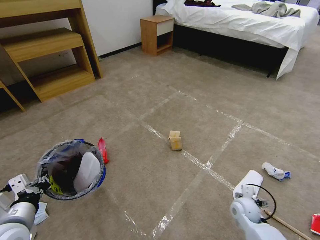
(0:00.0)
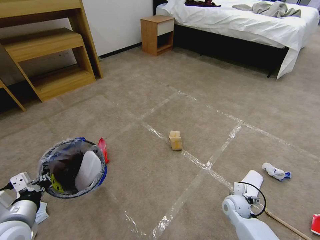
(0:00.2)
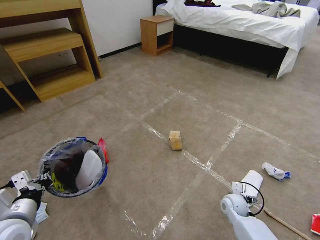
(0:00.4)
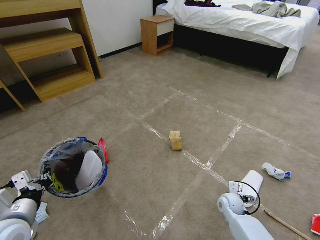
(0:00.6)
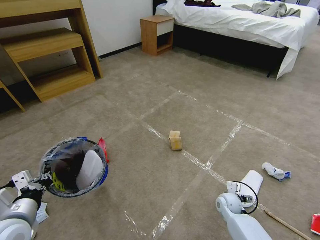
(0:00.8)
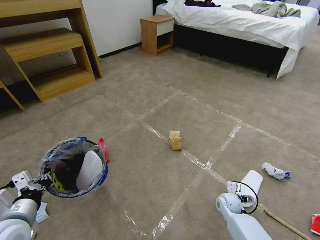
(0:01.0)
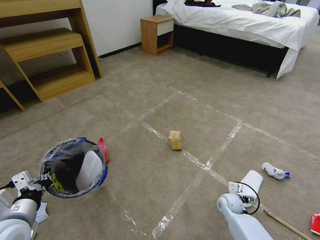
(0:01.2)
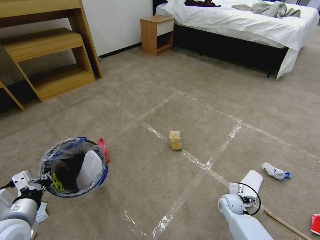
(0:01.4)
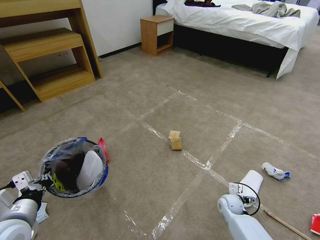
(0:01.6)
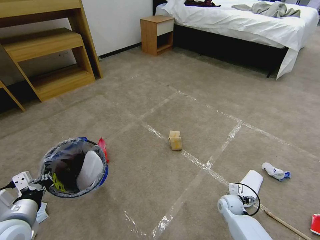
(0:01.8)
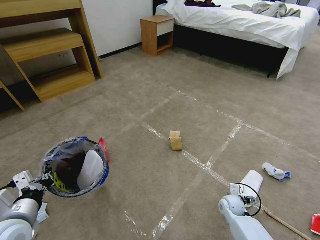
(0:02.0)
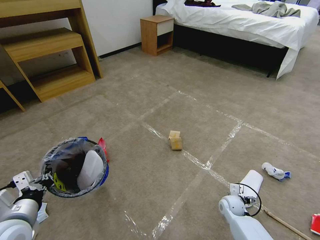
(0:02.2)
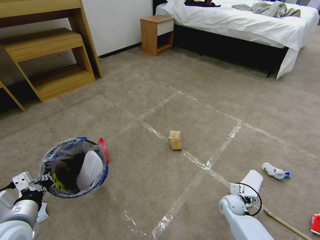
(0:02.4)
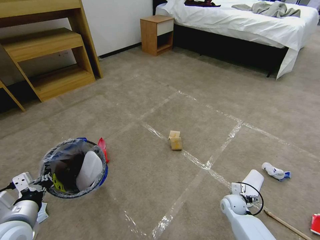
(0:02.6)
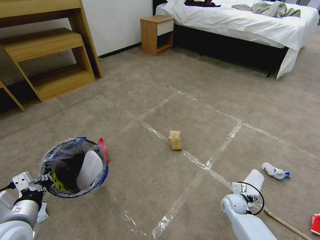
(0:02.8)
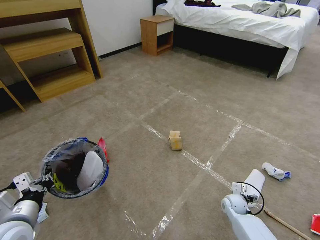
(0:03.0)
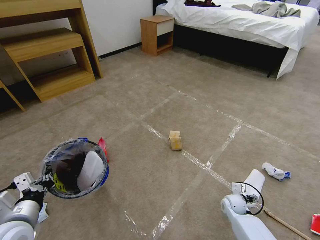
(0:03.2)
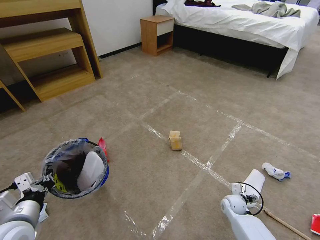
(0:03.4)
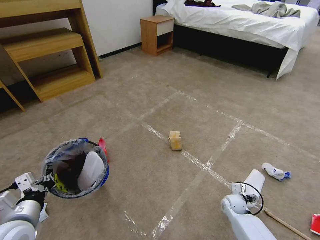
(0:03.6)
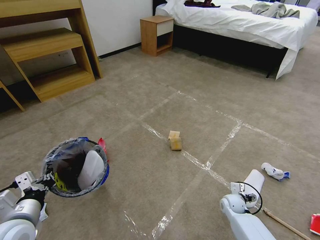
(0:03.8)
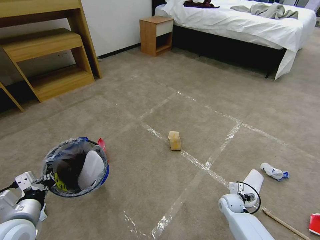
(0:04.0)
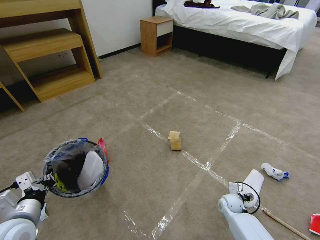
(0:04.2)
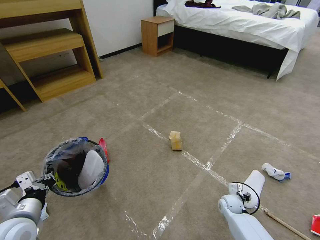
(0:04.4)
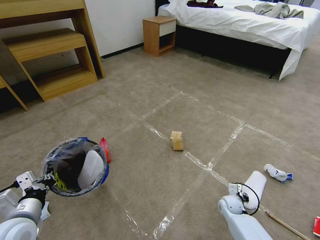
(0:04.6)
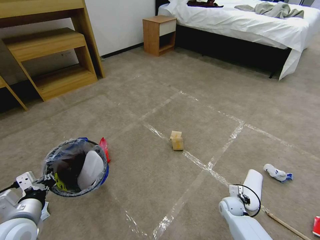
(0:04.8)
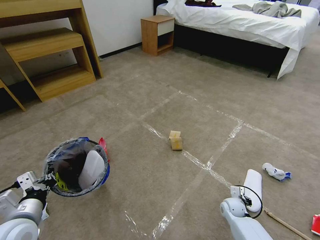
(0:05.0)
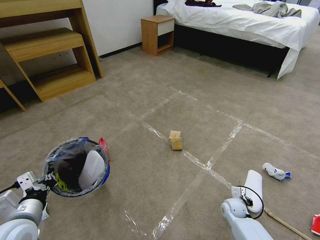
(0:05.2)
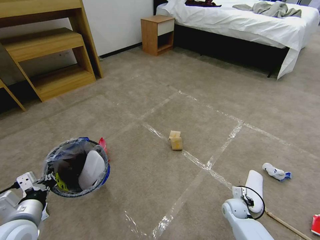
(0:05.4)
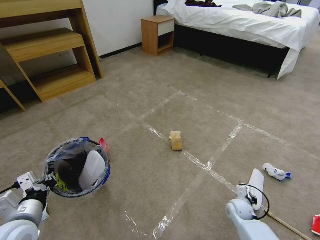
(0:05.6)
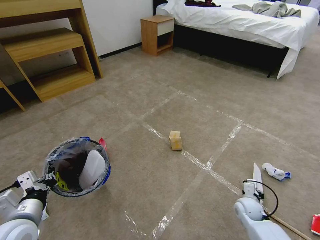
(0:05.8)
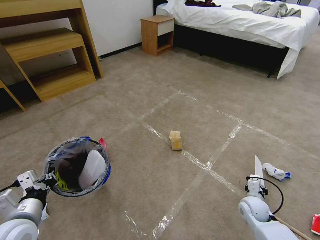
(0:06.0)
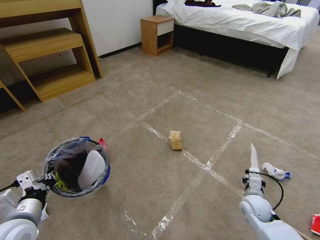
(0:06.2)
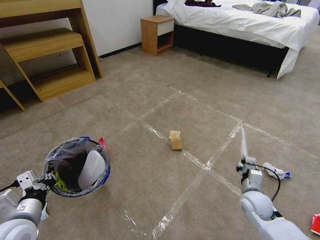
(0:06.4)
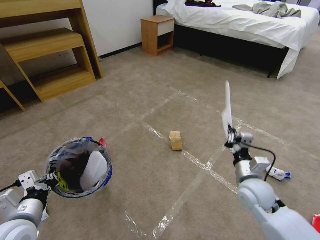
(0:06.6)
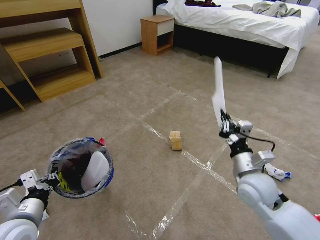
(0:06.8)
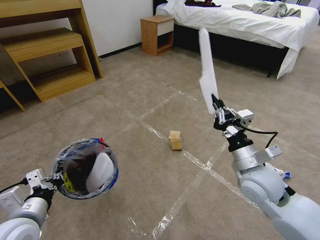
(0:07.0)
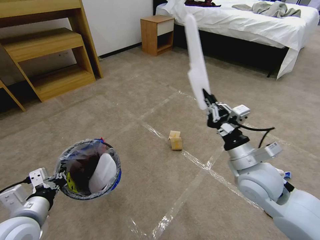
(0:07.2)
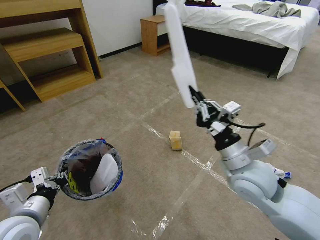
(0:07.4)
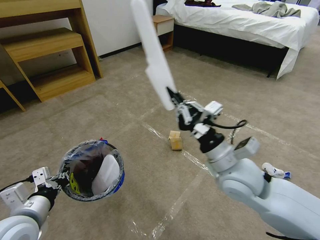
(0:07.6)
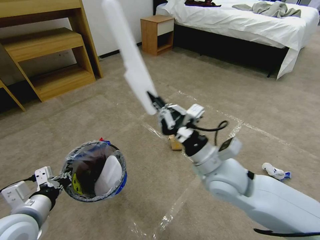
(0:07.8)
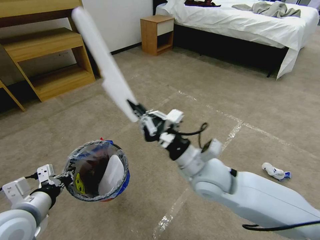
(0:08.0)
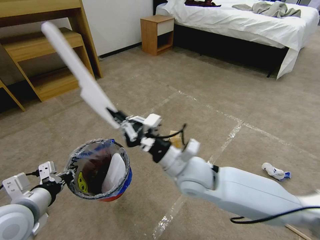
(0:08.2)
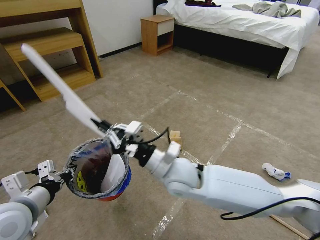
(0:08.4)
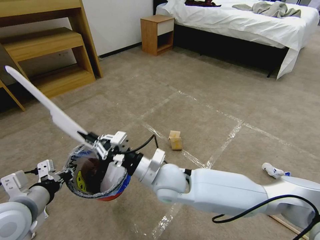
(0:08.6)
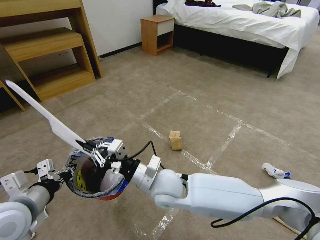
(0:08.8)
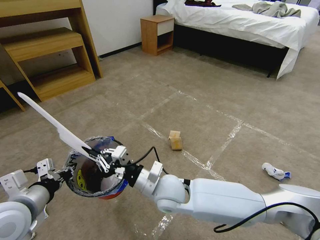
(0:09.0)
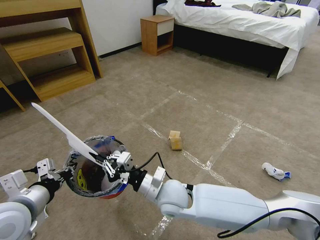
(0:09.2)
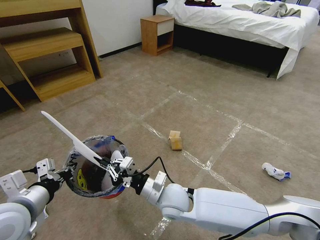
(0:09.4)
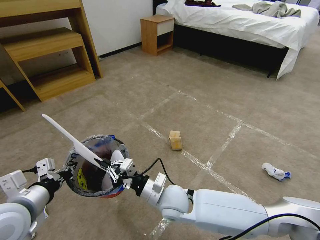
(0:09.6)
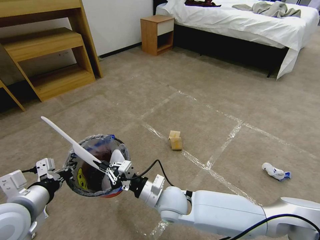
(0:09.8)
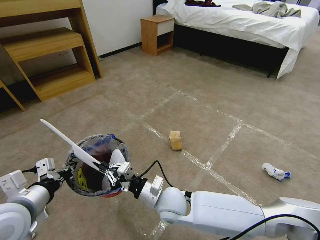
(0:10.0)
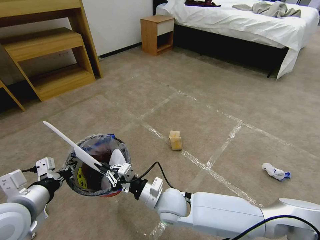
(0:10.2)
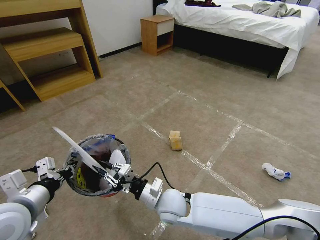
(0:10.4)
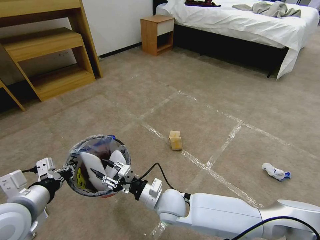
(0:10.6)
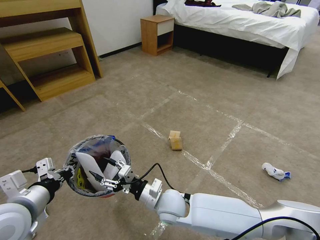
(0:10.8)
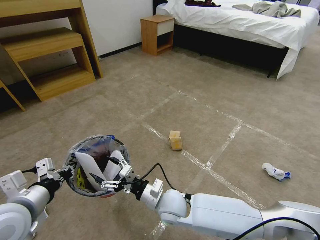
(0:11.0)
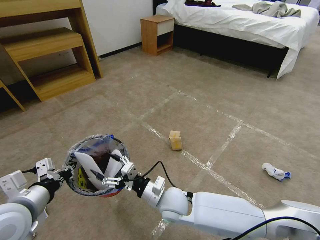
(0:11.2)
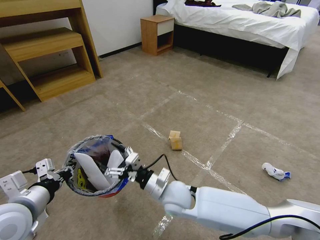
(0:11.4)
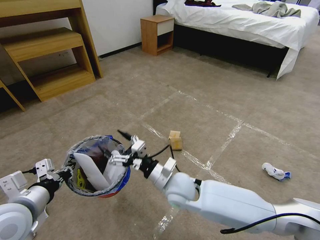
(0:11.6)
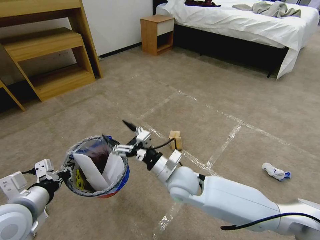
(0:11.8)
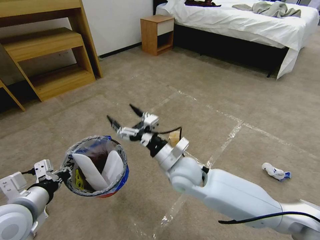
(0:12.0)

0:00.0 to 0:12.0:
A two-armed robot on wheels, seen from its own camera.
Task of the whole recording: Pick up the trash bin and place the garbage on the floor into it.
0:00.0 to 0:01.6: The right gripper heads downward, covering roughly 5 cm.
0:01.6 to 0:03.0: The grippers move only a little.
0:03.0 to 0:04.4: The right gripper closes.
0:04.4 to 0:06.0: The right gripper goes about 10 cm upward, and closes.
0:06.0 to 0:07.6: The right gripper shifts some 35 cm upward and to the left.
0:07.6 to 0:09.0: The right gripper travels to the left and downward by about 20 cm.
0:09.0 to 0:10.4: The right gripper travels downward by about 5 cm.
0:10.4 to 0:12.0: The right gripper moves upward and forward, roughly 10 cm, and opens its fingers.

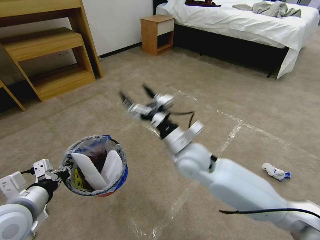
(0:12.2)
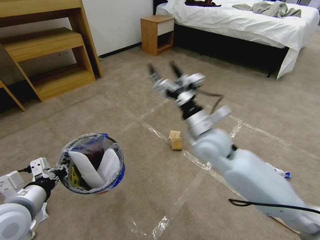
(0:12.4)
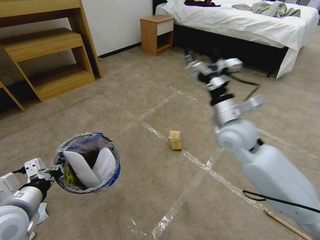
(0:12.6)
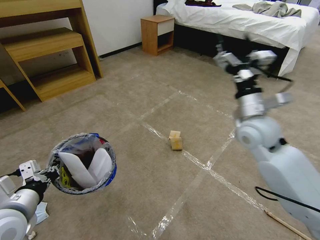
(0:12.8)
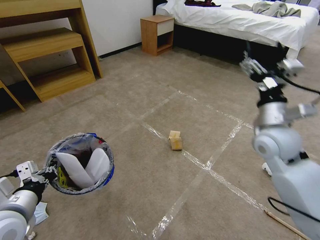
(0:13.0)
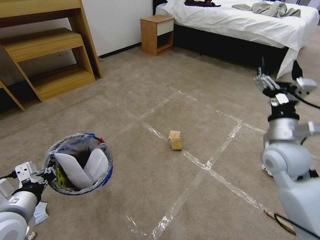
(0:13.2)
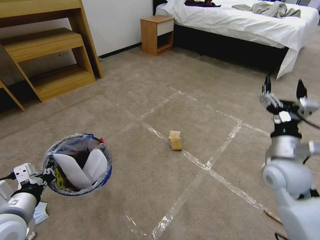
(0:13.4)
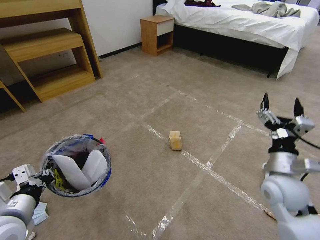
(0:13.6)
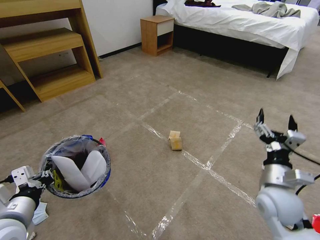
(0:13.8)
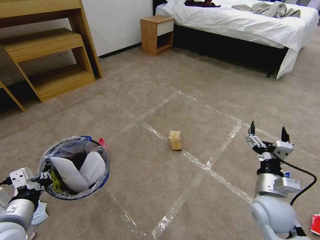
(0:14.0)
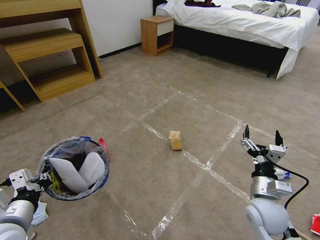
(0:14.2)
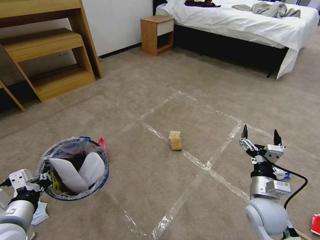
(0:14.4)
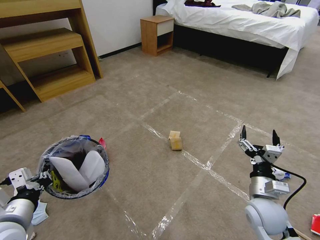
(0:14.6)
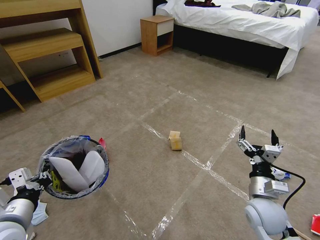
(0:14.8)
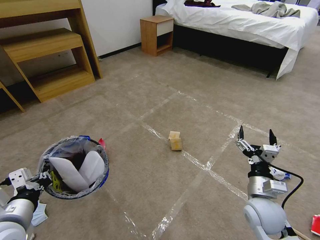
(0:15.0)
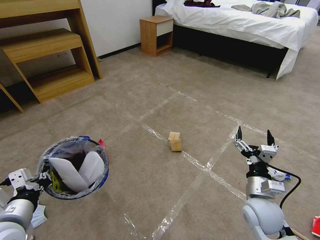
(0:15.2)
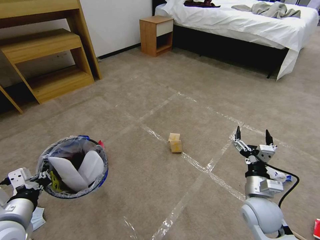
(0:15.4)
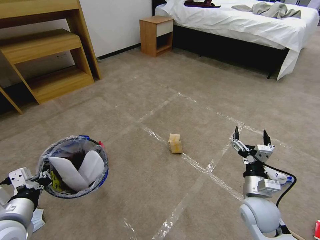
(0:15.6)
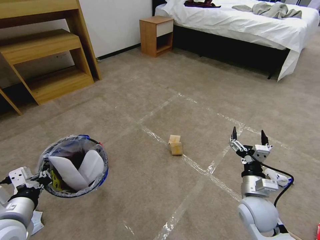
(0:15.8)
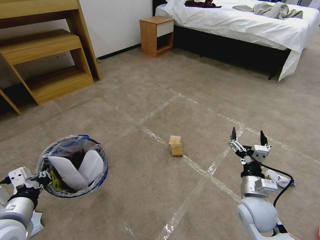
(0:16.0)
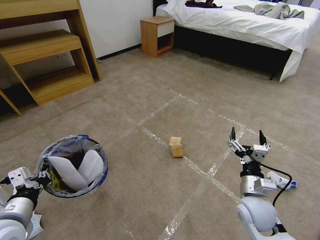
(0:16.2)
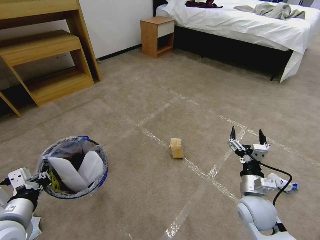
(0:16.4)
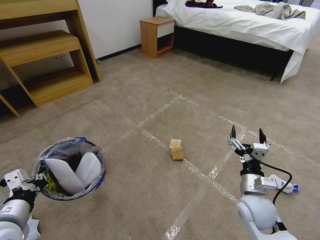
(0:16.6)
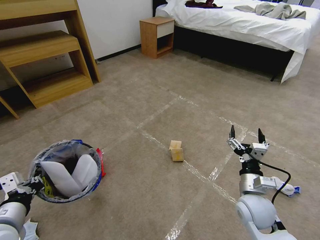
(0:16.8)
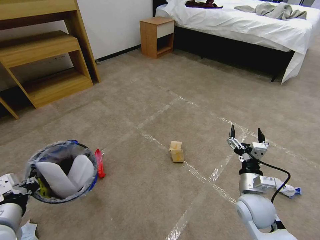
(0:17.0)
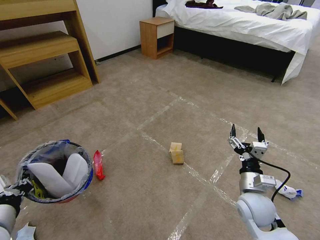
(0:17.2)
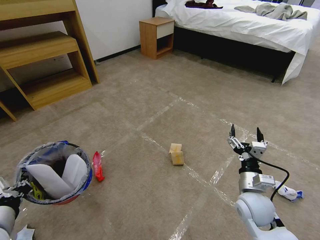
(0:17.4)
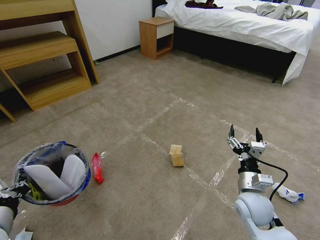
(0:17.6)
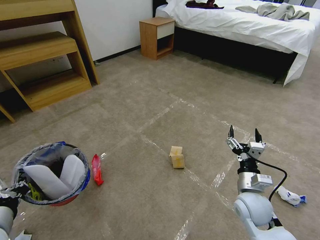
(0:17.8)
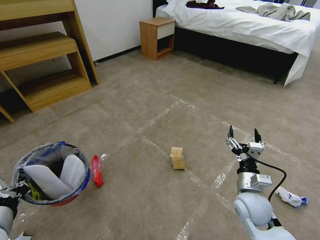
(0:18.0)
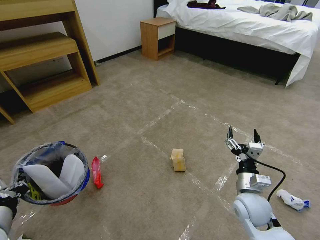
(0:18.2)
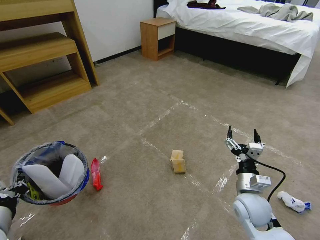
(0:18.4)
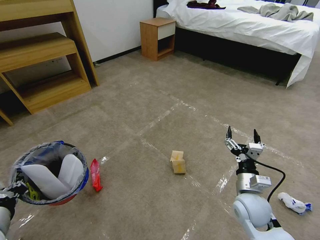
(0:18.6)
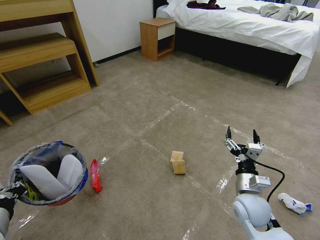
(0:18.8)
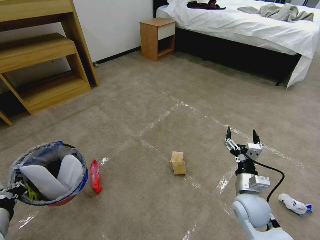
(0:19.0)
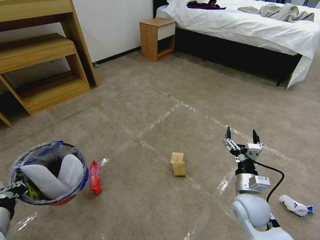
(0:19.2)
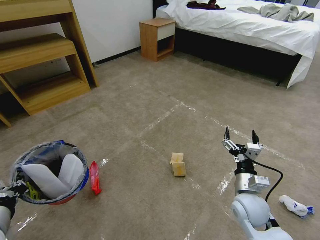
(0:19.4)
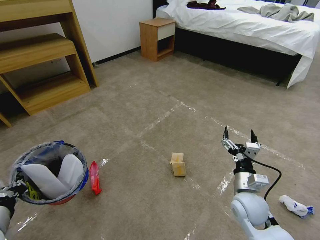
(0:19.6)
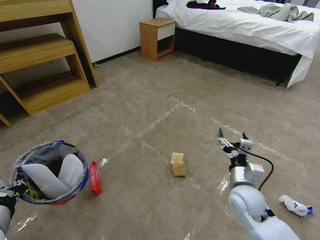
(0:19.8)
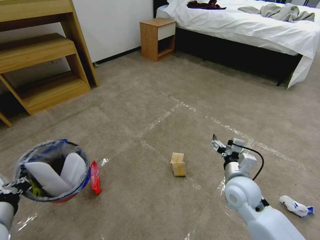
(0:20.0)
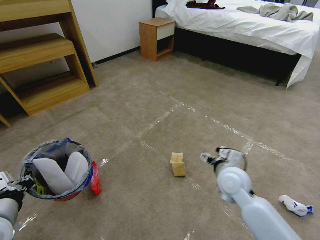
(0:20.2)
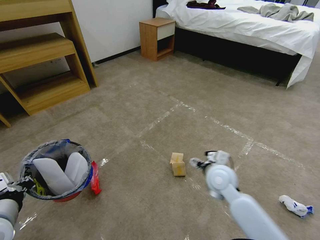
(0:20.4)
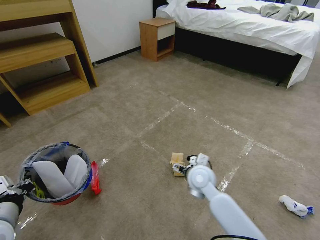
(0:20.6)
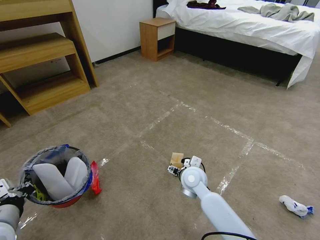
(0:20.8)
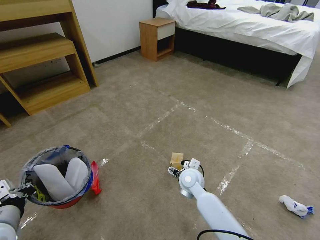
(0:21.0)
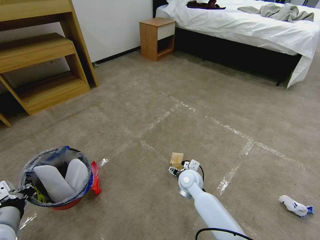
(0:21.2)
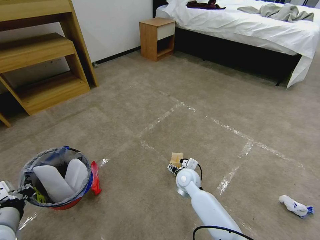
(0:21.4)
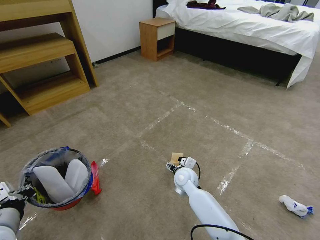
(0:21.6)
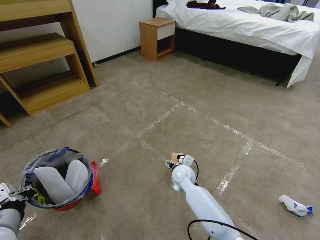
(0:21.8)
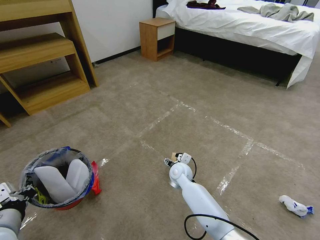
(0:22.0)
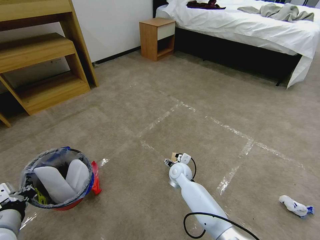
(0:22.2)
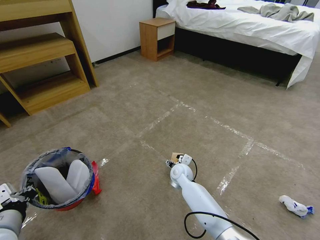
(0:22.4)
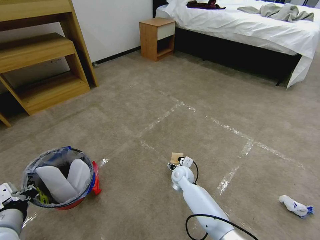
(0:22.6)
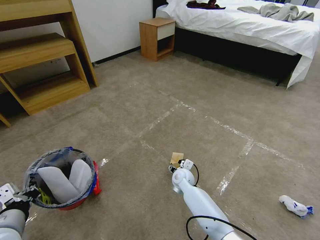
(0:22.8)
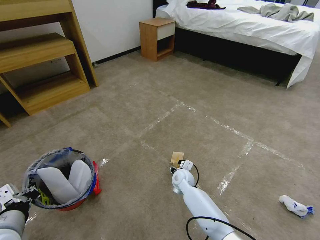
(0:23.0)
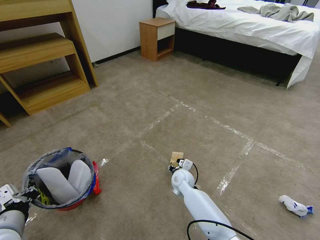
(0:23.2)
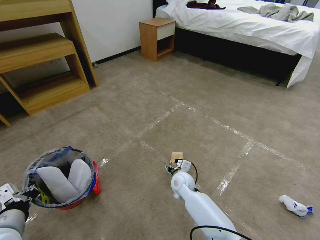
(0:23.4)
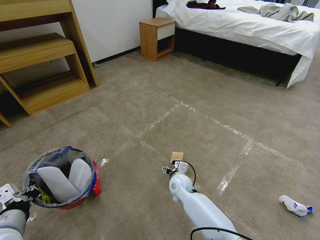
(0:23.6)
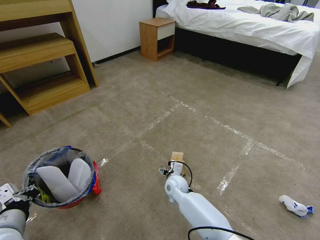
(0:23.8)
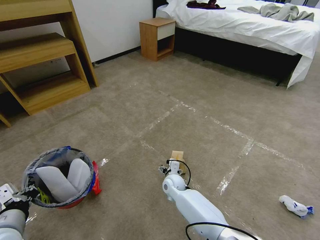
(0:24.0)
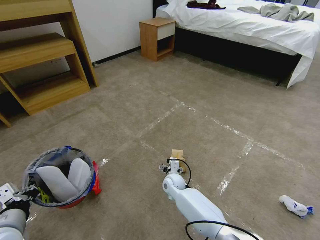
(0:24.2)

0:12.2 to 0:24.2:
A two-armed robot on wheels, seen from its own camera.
Task of the whole recording: Pick up the trash bin and place the garbage on the floor into it.
0:12.2 to 0:13.8: The right gripper is displaced to the right and backward by approximately 25 cm.
0:13.8 to 0:15.2: The right gripper ends up about 5 cm from where it was.
0:15.2 to 0:16.6: There are only small adjustments of the grippers.
0:18.2 to 0:19.8: The grippers make only small movements.
0:19.8 to 0:21.2: The right gripper travels to the left, forward and downward by approximately 20 cm.
0:21.2 to 0:22.6: The right gripper shifts by approximately 5 cm.
0:22.6 to 0:24.2: The right gripper changes place by roughly 5 cm.
